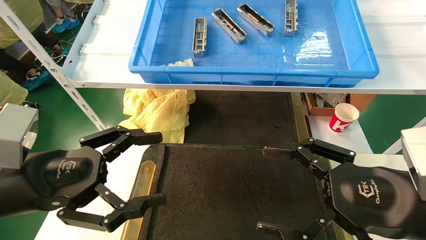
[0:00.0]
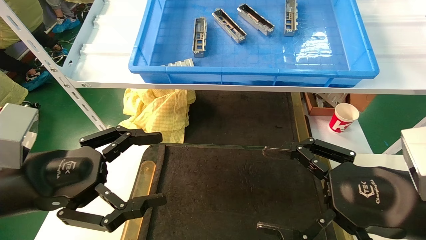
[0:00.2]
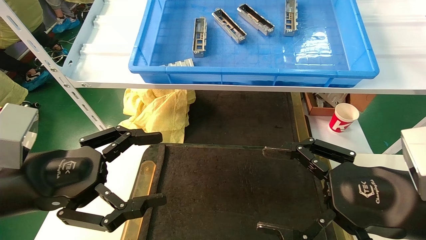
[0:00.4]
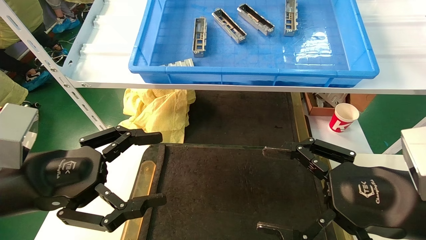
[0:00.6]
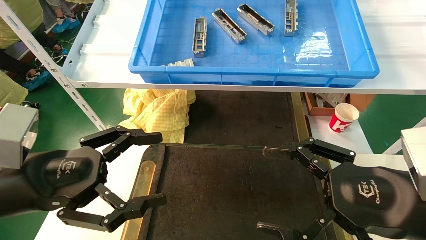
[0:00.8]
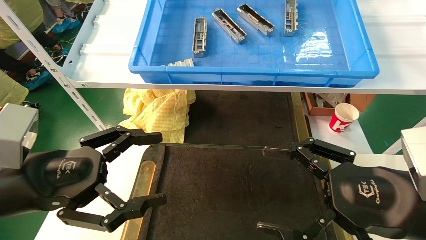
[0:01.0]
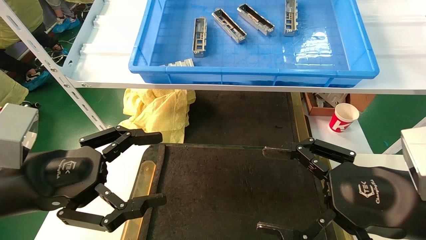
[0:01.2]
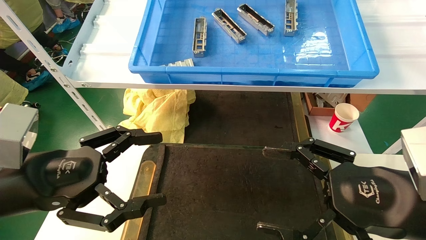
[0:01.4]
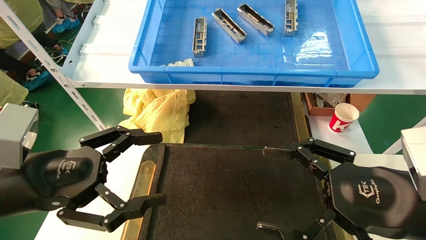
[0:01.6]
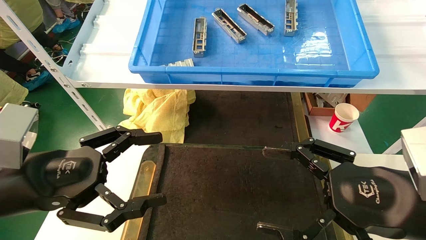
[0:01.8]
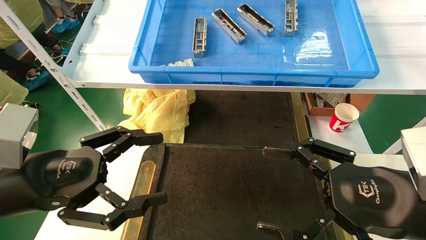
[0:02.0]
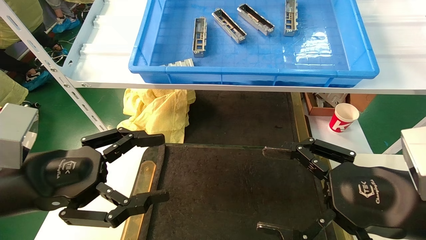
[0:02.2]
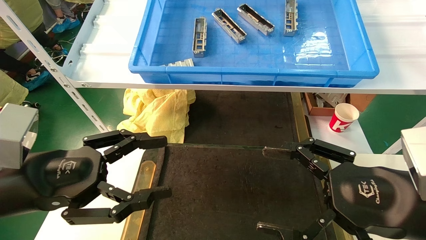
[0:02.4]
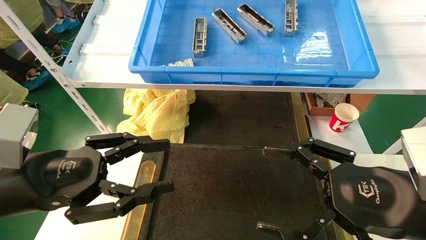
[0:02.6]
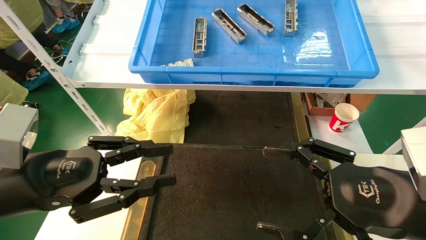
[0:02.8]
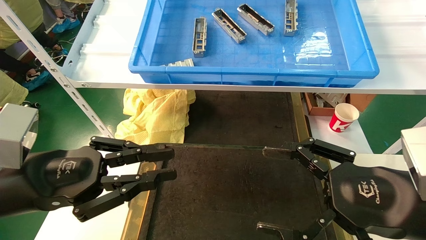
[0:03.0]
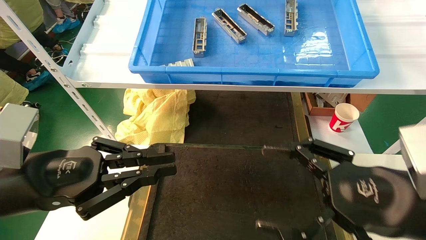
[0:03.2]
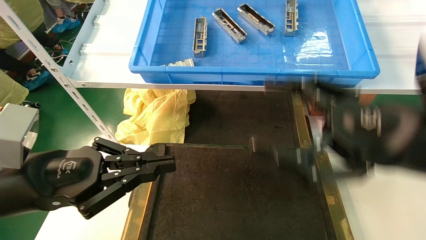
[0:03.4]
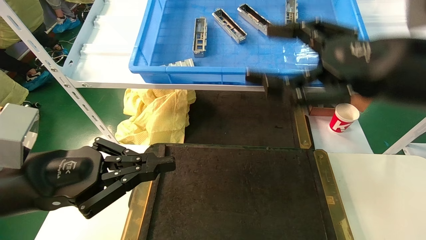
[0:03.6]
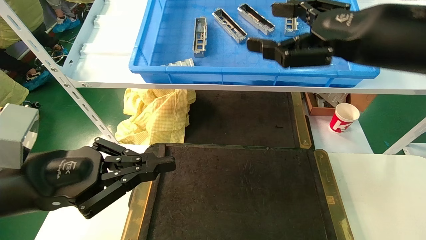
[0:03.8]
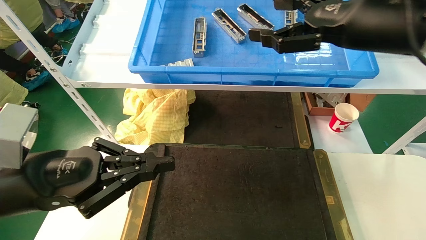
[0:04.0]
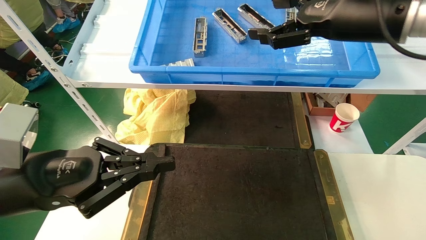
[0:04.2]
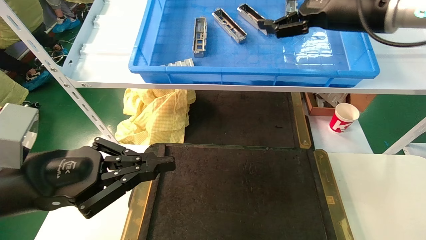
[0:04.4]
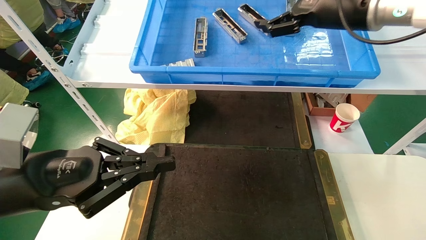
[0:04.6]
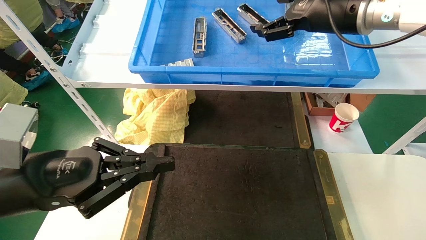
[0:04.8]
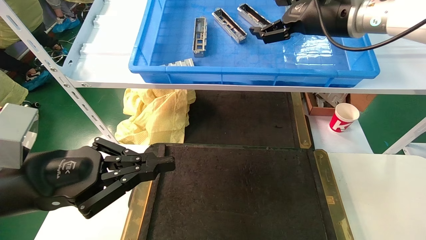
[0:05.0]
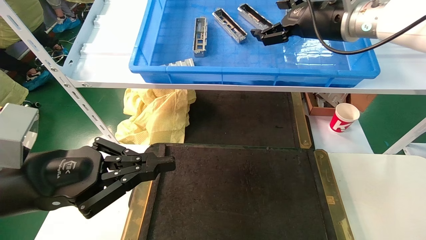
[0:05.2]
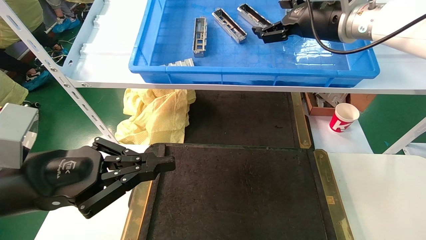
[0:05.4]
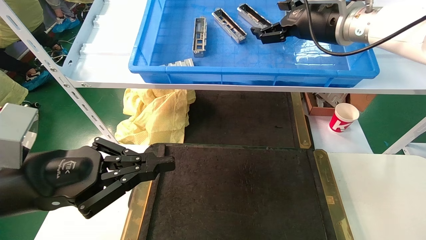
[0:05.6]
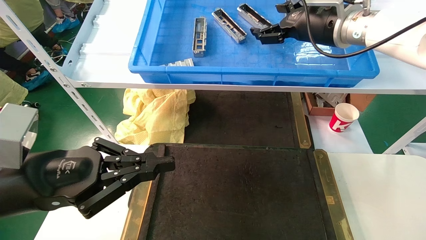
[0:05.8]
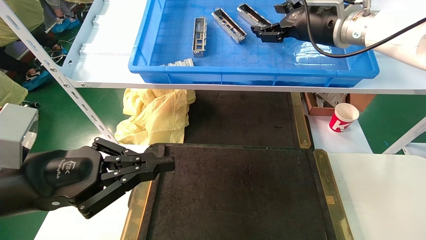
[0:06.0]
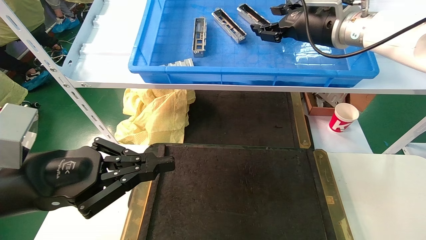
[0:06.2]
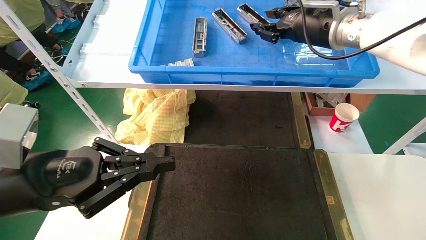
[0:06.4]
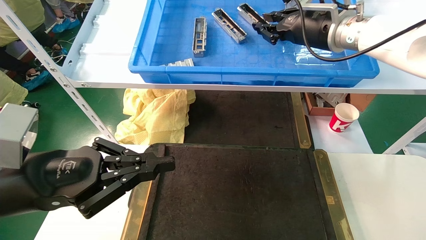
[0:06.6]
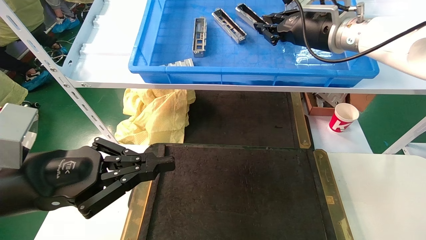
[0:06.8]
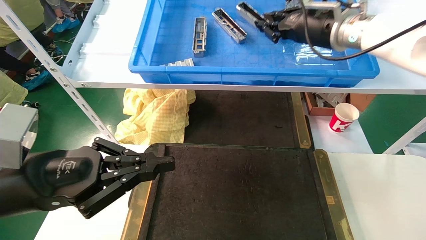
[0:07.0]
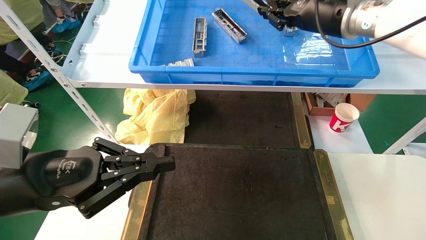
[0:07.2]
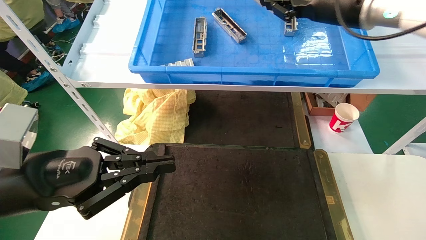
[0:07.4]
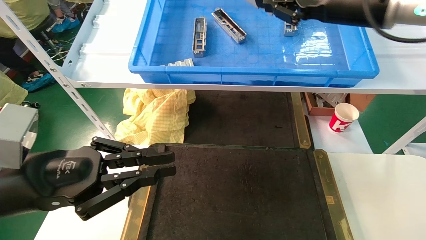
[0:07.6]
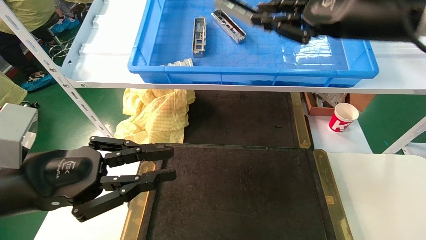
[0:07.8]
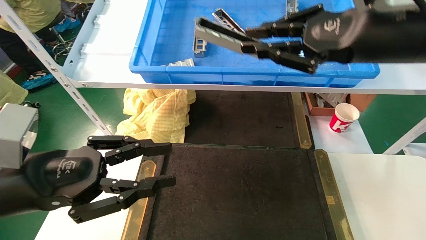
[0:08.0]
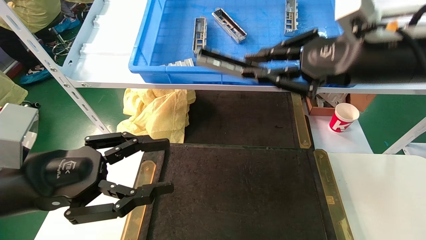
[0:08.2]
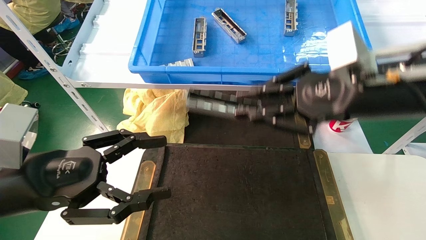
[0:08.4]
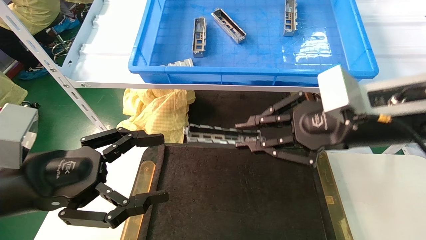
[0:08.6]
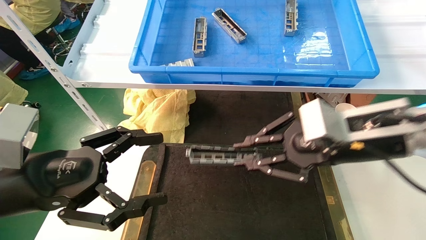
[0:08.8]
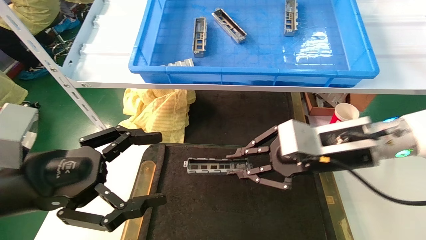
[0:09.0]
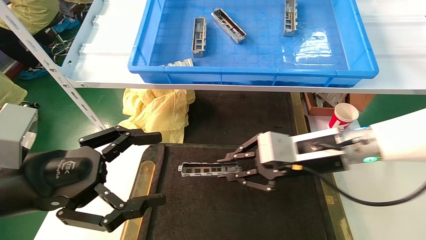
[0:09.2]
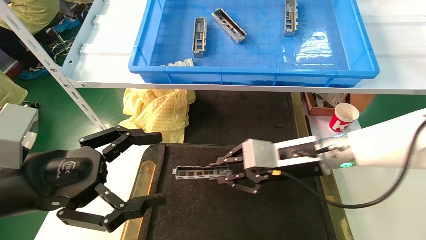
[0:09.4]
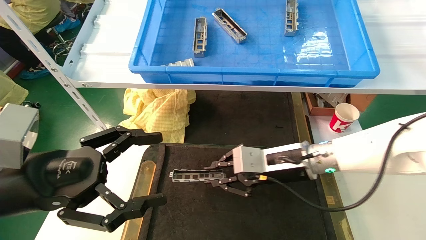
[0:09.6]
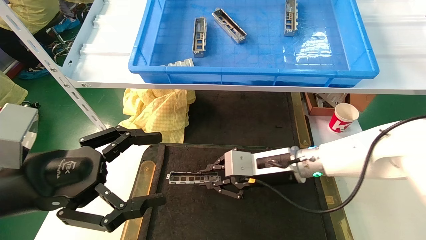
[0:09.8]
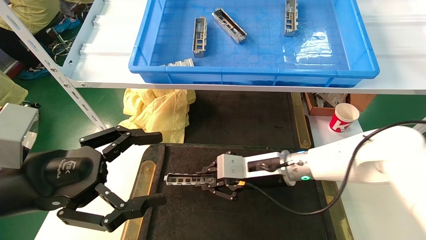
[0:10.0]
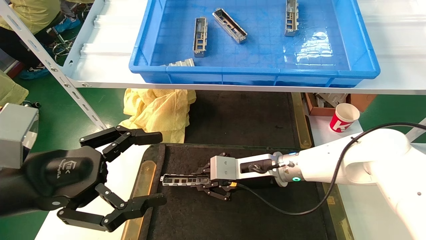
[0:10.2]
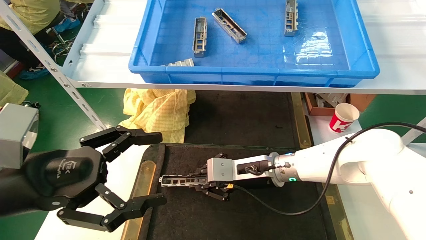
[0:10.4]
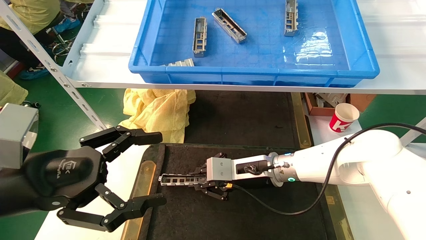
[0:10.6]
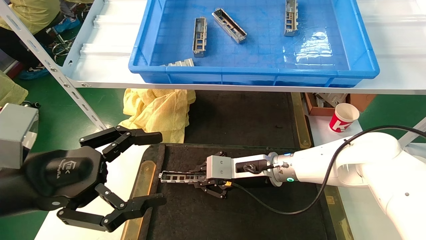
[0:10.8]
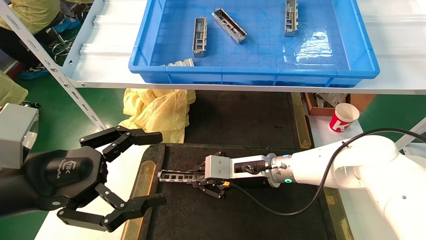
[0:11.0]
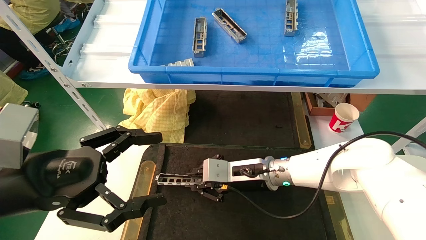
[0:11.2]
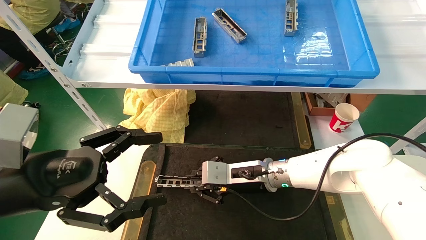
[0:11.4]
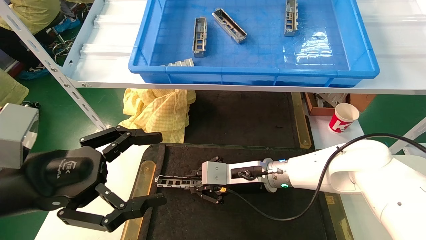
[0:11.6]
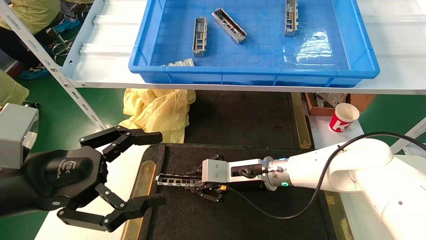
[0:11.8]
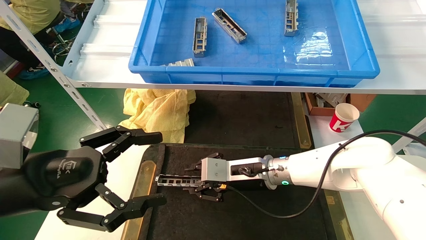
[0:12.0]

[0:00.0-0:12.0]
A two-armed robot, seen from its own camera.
Task of the whole recording: grasp the part and place them on the black container.
Step, 0:02.2 to 0:08.0: Pick up and lift the front USB bracket from the feeding area.
0:00.0 to 0:01.6: Both grippers stay about where they are.
0:01.6 to 0:03.0: The left gripper closes up.
0:03.0 to 0:04.4: The right gripper goes approximately 30 cm upward and forward.
0:04.4 to 0:06.0: The right gripper is displaced forward by about 5 cm.
0:06.0 to 0:07.6: The right gripper moves backward, approximately 10 cm, and closes up.
0:07.6 to 0:09.0: The left gripper opens its fingers; the right gripper shifts about 20 cm downward.
0:09.0 to 0:10.4: The right gripper is displaced downward, to the left and forward by some 15 cm.
0:10.4 to 0:12.0: The grippers stay close to where they were, moving slightly.

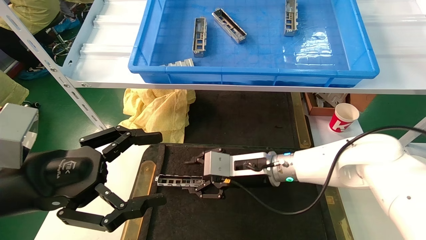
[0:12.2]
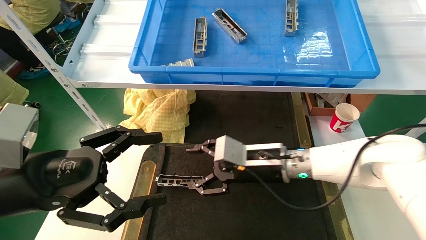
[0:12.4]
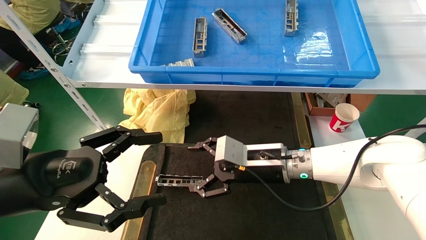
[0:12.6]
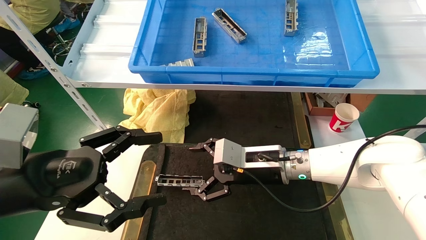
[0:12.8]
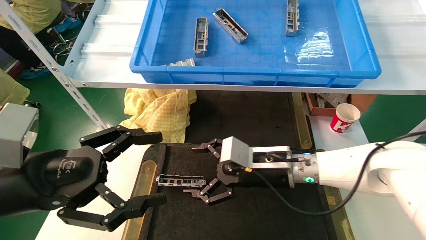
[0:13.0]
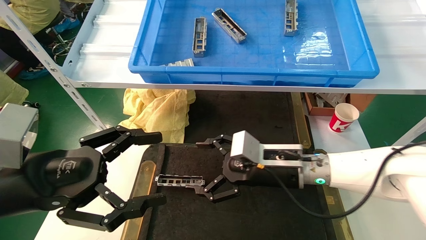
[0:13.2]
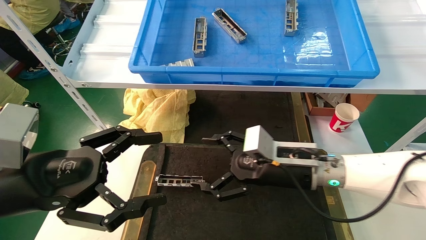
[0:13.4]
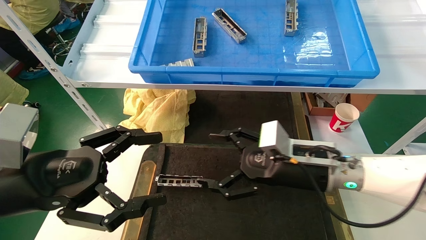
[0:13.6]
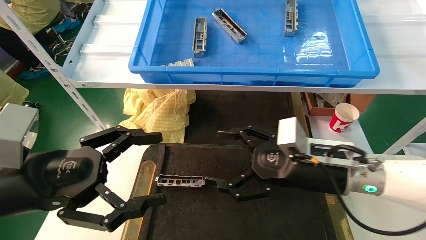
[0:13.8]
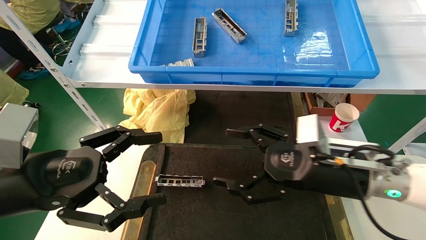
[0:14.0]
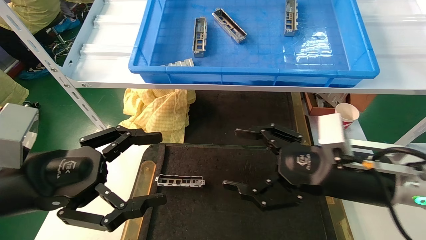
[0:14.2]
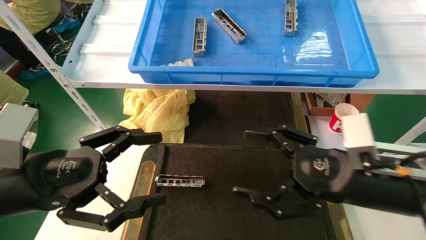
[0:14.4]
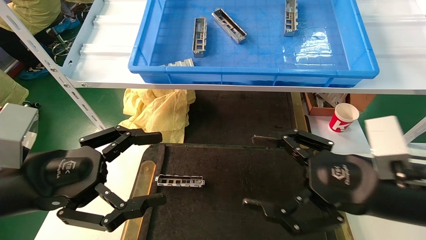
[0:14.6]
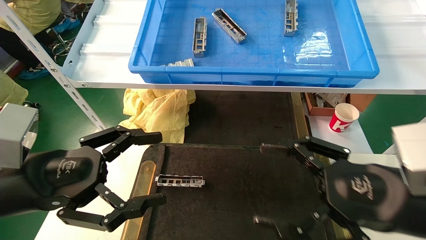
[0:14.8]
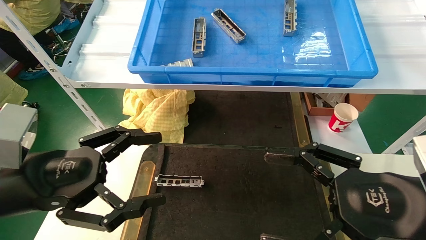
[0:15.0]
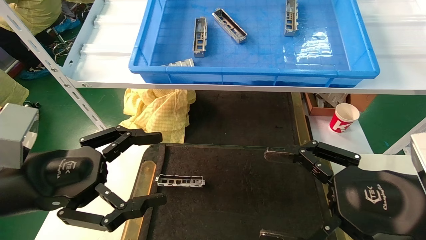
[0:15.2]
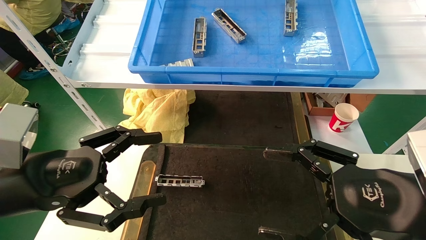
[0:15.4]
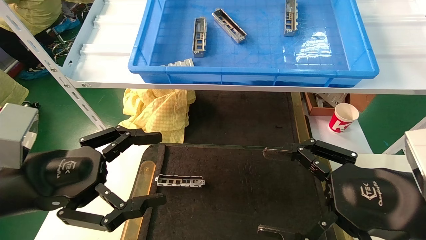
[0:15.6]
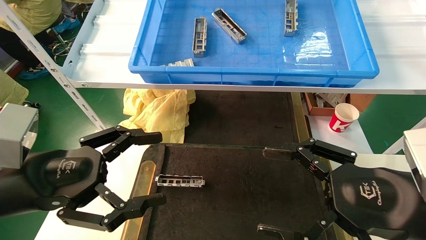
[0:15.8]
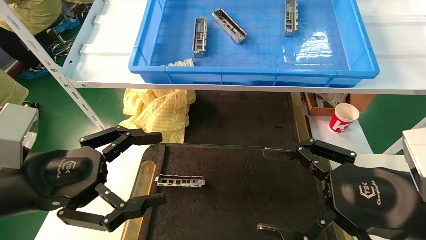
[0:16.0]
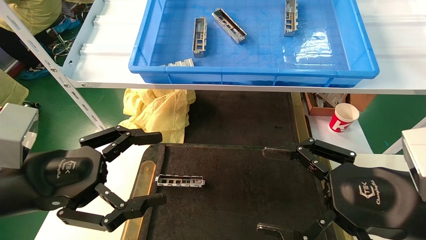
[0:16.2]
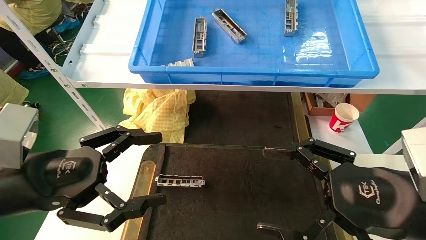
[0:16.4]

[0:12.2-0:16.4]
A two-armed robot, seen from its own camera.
Task of the whole recording: grasp the part and place them on the black container.
0:12.2 to 0:13.6: The right gripper heads to the right and backward, covering approximately 10 cm, and opens.
0:13.6 to 0:15.0: The right gripper goes approximately 20 cm backward and to the right.
0:15.0 to 0:16.4: The two grippers keep their place.
